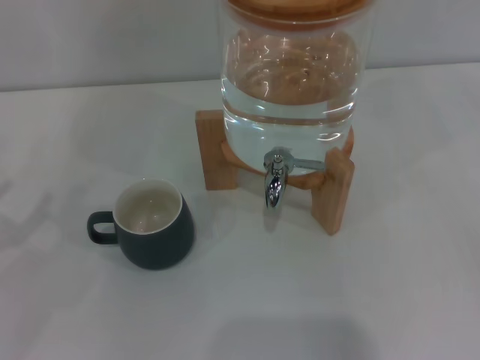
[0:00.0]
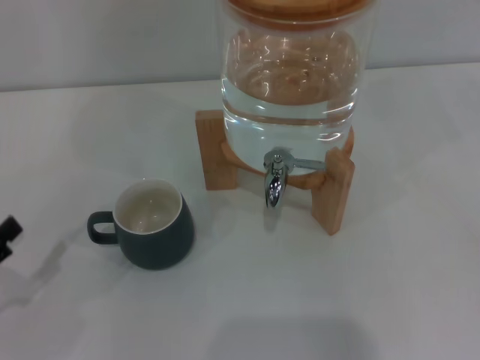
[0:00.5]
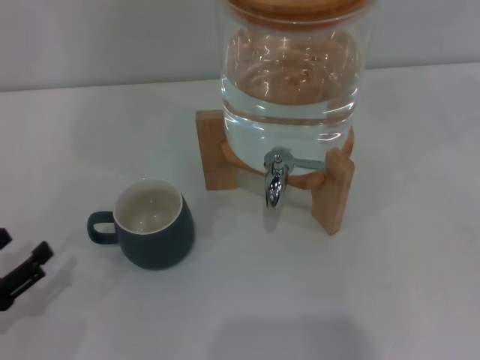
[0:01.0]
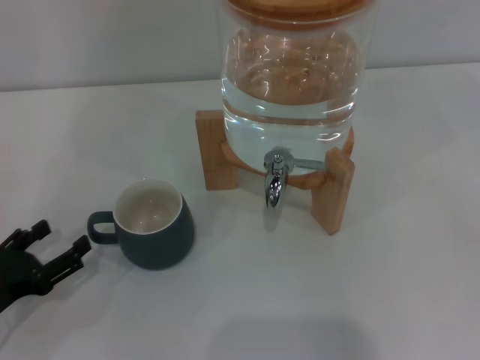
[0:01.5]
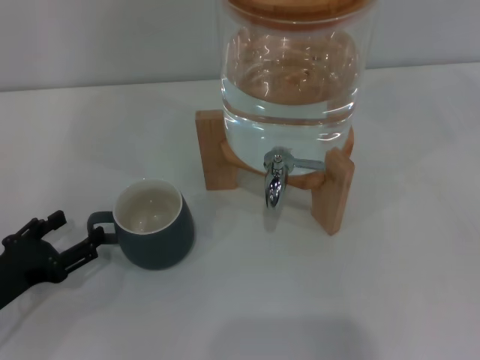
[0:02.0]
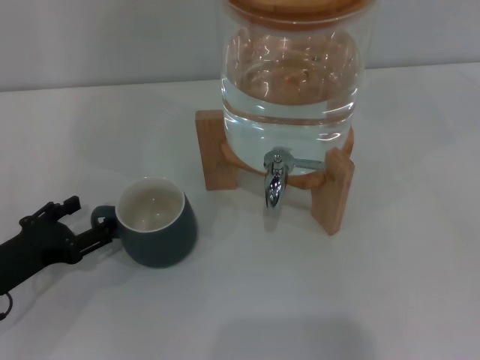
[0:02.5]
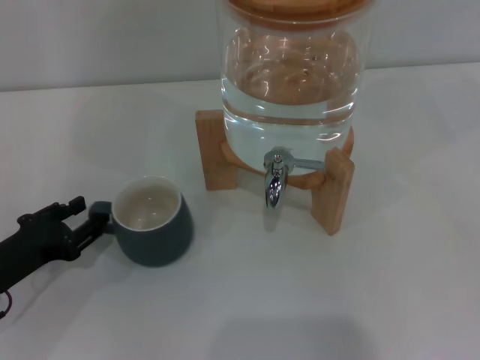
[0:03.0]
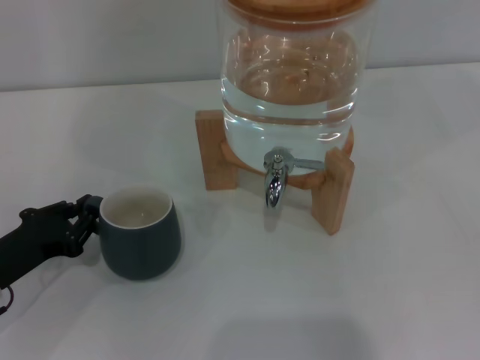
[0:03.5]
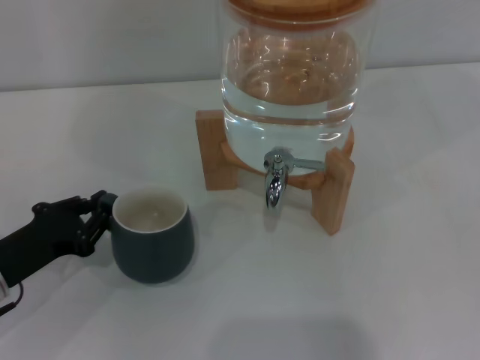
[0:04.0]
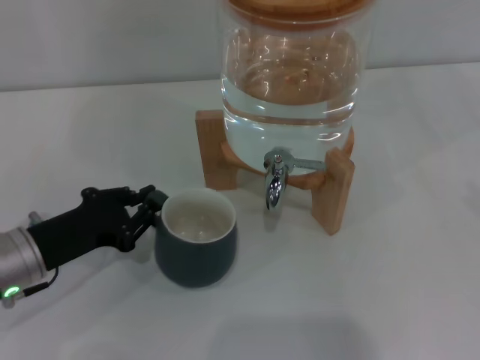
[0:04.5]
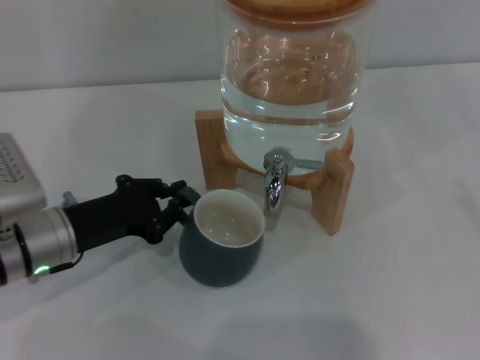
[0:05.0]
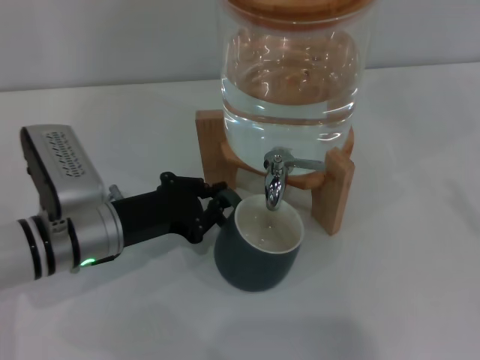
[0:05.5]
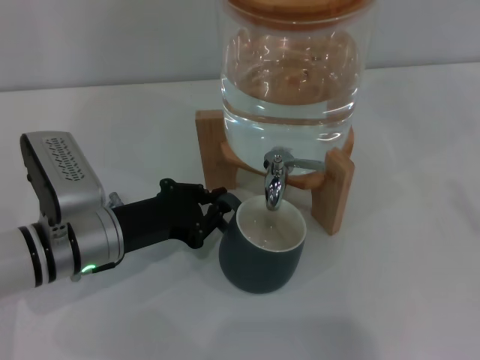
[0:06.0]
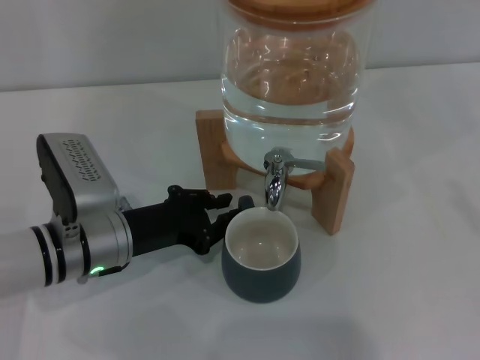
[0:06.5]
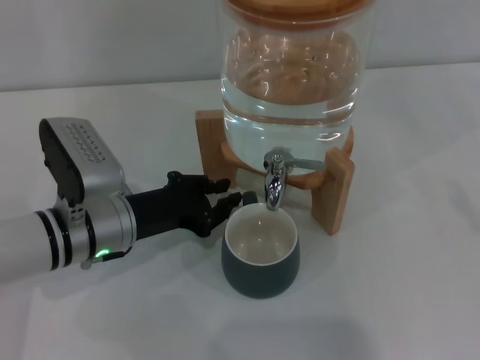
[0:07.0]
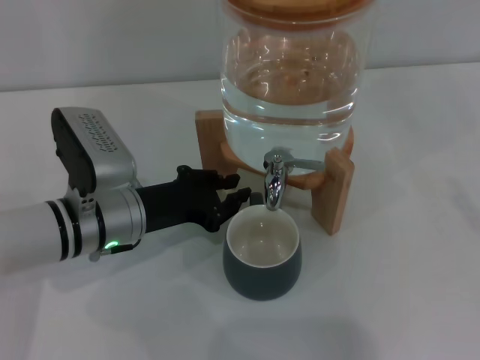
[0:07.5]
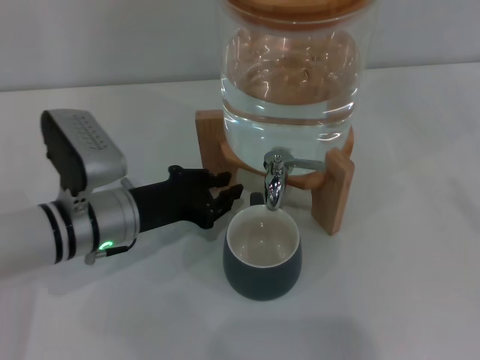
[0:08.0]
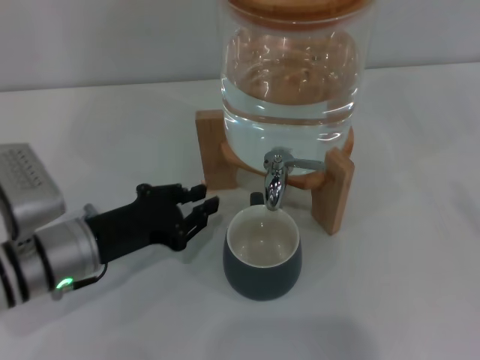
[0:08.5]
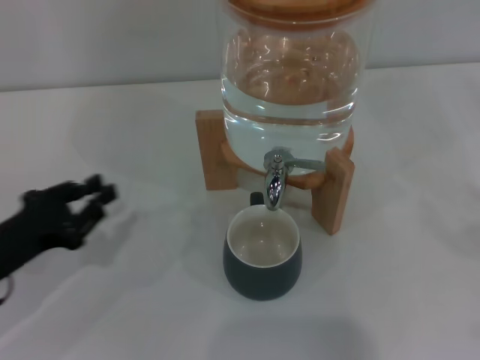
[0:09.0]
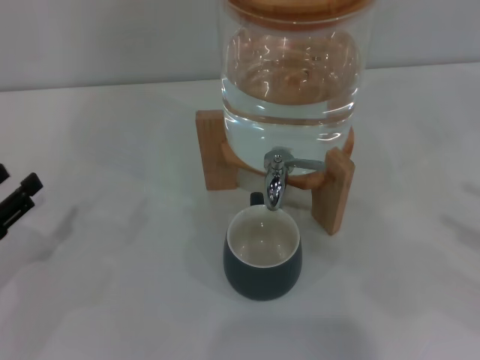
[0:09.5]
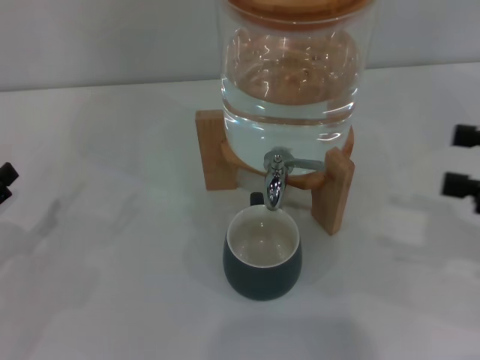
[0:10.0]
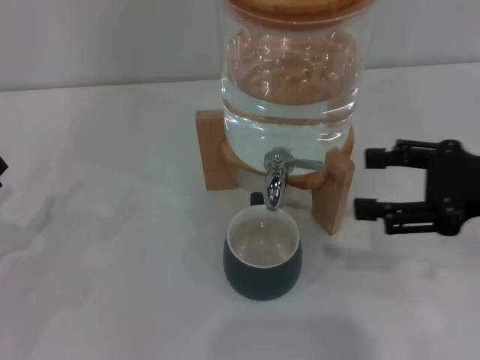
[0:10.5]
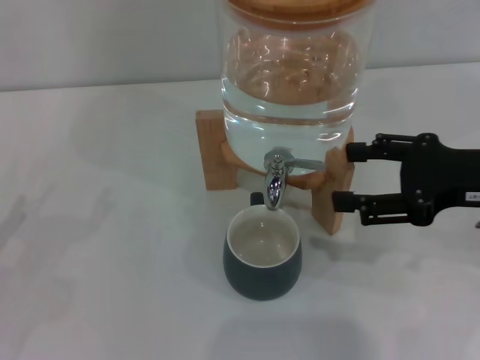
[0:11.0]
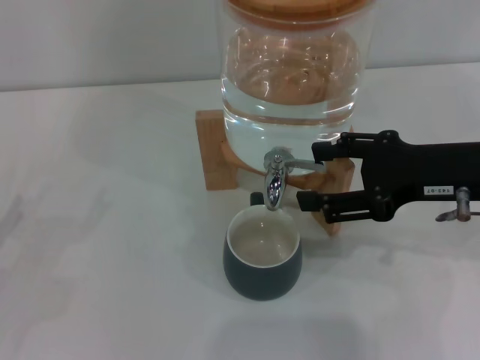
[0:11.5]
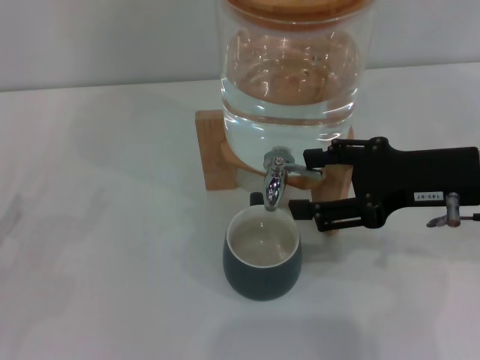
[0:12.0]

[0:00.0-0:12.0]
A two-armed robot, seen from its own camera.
Task of the whole recording: the left gripper pick up the black cup and place it horizontally under the faucet, the right gripper turn on the faucet to fill the cup, and then turn off the faucet.
Step, 0:00.0 to 0:07.0: Move the cup beneath the water dispenser nozzle with the left gripper.
0:00.0 to 0:02.0: The left gripper heads downward and to the right, covering roughly 10 cm.
0:02.0 to 0:04.0: The left gripper closes.
0:04.0 to 0:06.0: The left gripper moves to the right, approximately 10 cm.
0:06.0 to 0:08.0: The grippers stay close to where they were, moving slightly.
0:08.0 to 0:10.0: The left gripper goes roughly 20 cm to the left and backward, and opens; the right gripper goes roughly 15 cm to the left, upward and forward.
0:10.0 to 0:12.0: The right gripper travels to the left and forward by some 15 cm.

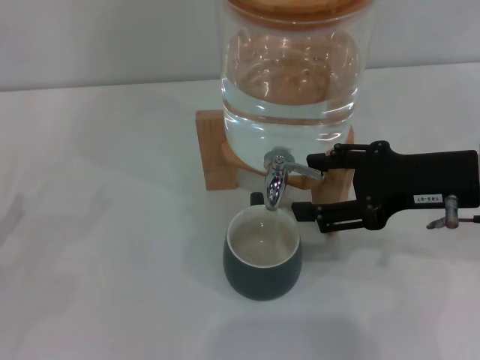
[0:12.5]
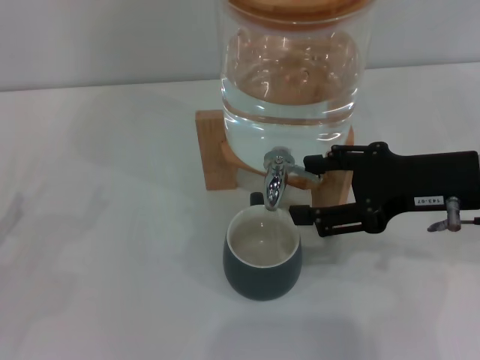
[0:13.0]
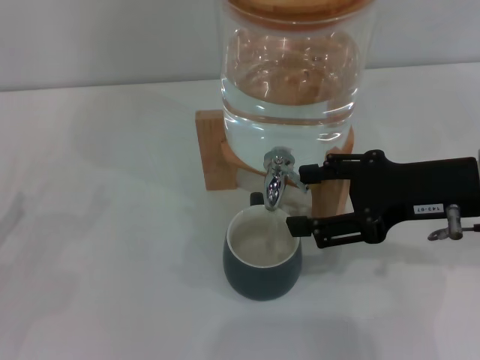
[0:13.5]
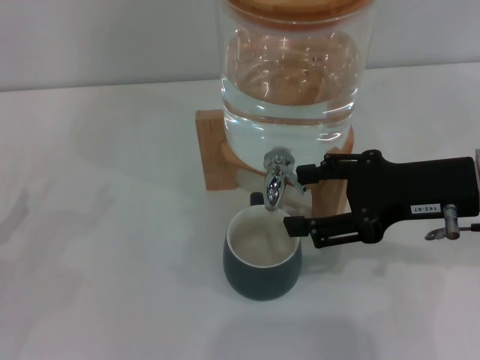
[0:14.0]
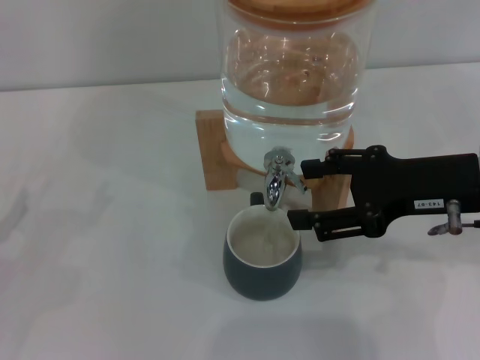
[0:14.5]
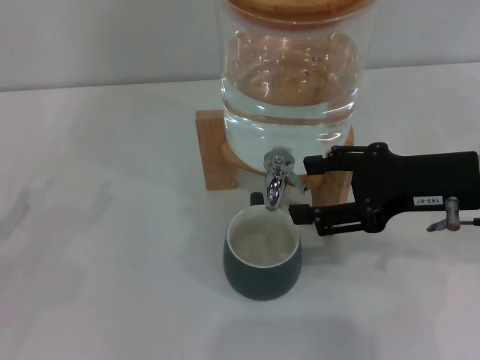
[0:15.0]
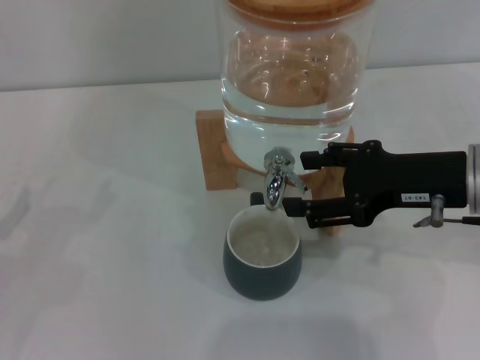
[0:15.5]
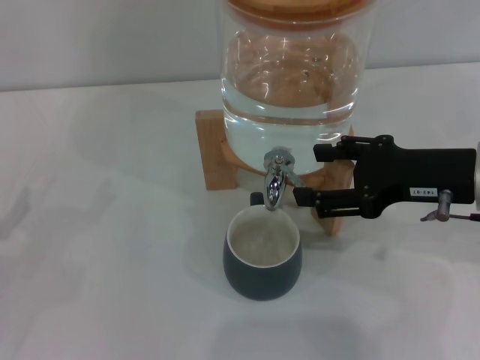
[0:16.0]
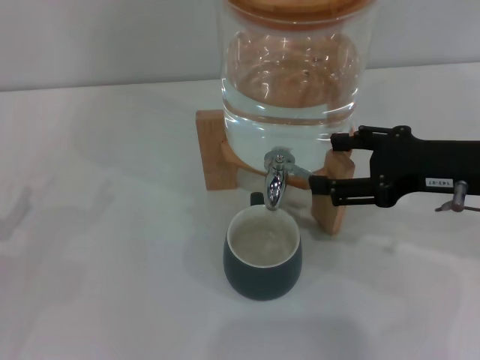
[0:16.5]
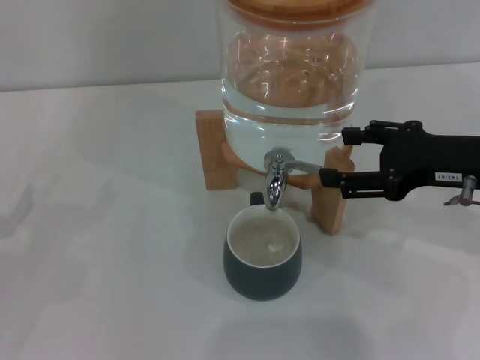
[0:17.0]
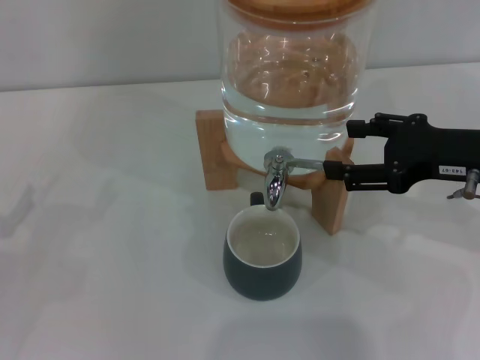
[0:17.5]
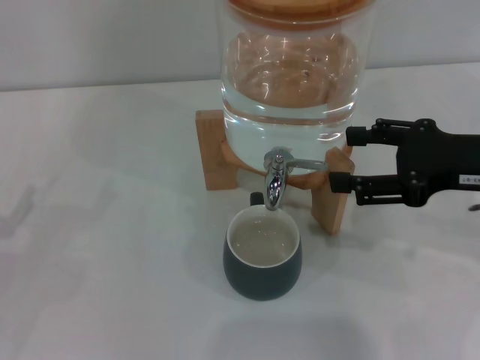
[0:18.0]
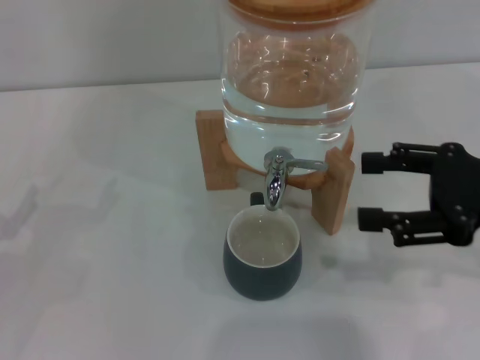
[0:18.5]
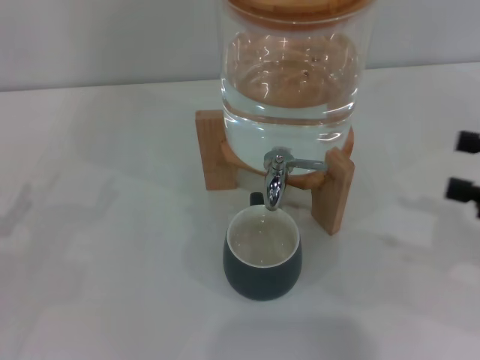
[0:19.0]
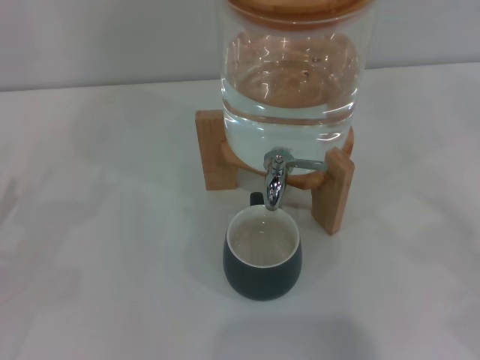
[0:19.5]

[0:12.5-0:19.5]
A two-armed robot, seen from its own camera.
Task of the whole recording: the left gripper pick up the black cup and place it horizontally under the faucet, the right gripper turn on the faucet to fill the cup, and then turn off the faucet.
Step, 0:14.5 to 0:17.5: Close the dispenser valve with the right gripper.
0:12.5 to 0:14.5: Both grippers stay put.
0:14.5 to 0:17.5: The grippers make only small movements.
0:17.5 to 0:19.5: The right gripper moves to the right and backward, some 20 cm.
